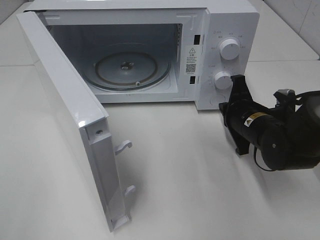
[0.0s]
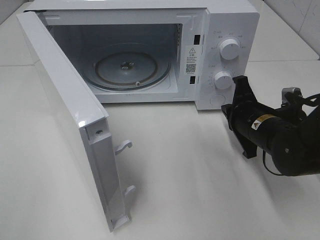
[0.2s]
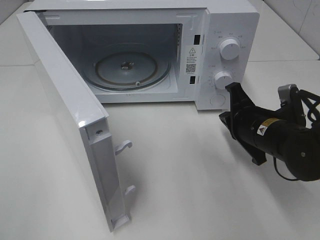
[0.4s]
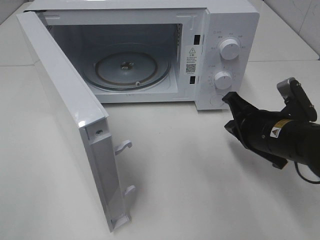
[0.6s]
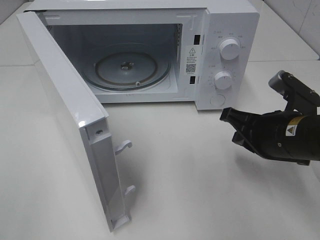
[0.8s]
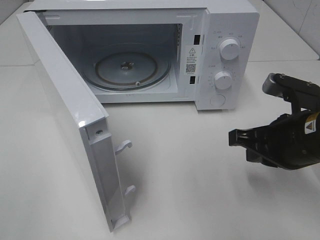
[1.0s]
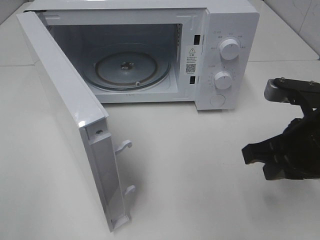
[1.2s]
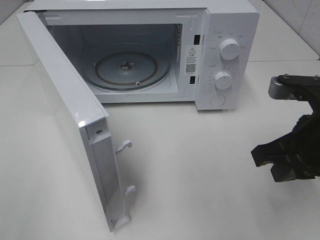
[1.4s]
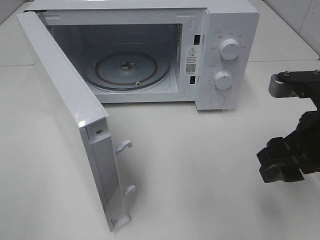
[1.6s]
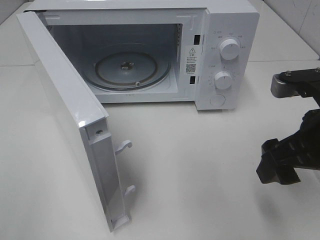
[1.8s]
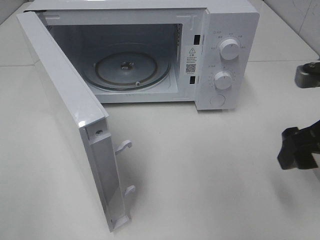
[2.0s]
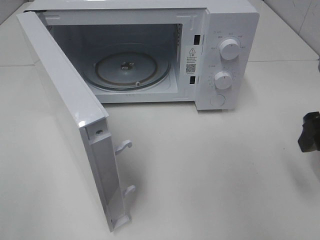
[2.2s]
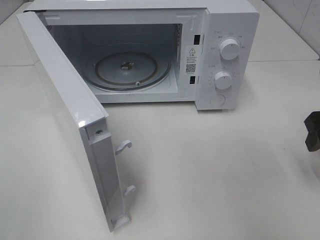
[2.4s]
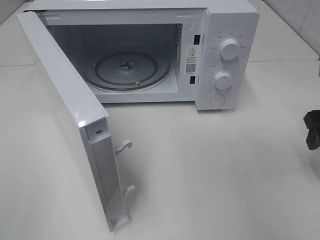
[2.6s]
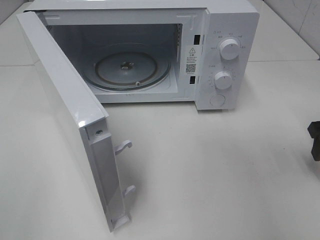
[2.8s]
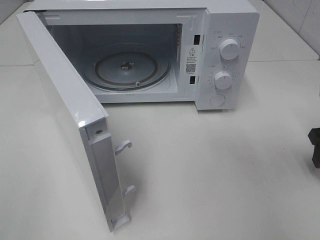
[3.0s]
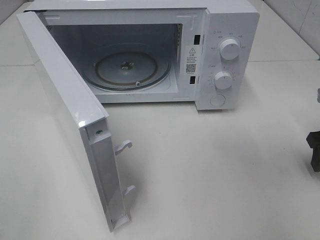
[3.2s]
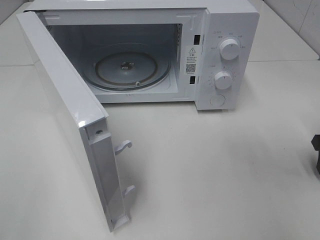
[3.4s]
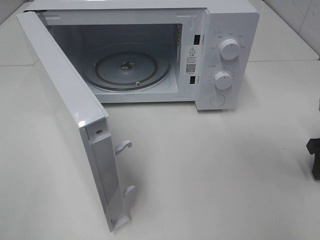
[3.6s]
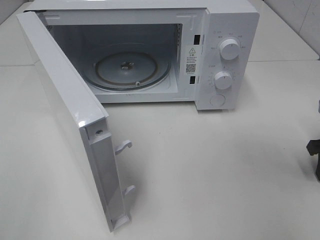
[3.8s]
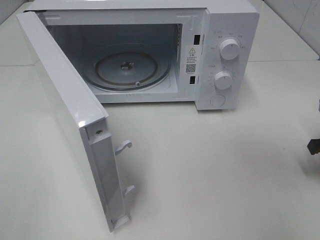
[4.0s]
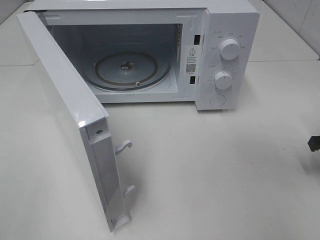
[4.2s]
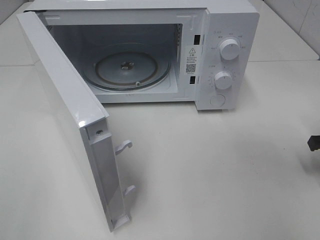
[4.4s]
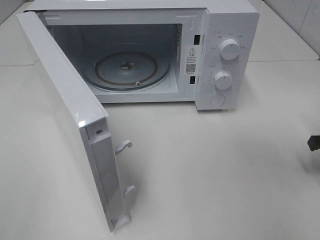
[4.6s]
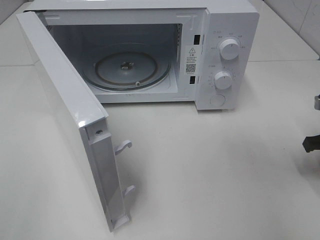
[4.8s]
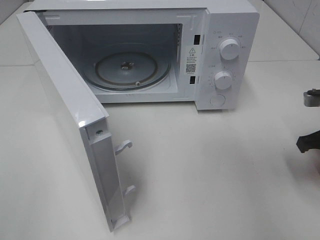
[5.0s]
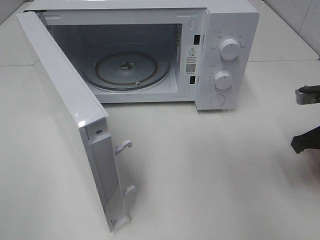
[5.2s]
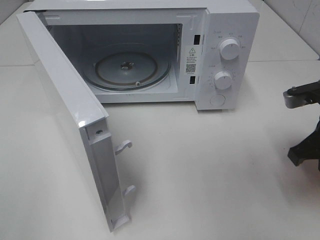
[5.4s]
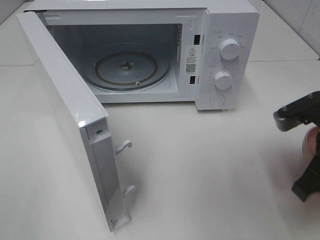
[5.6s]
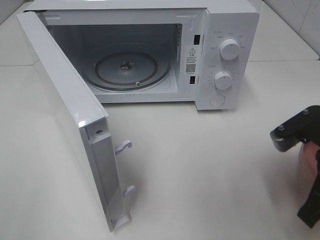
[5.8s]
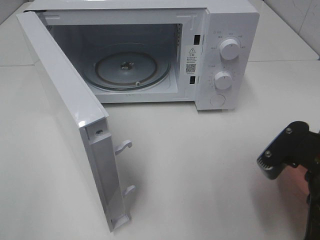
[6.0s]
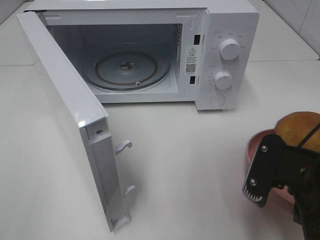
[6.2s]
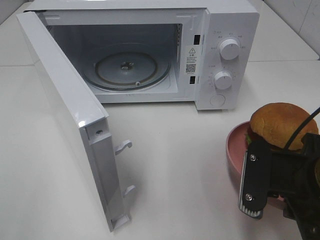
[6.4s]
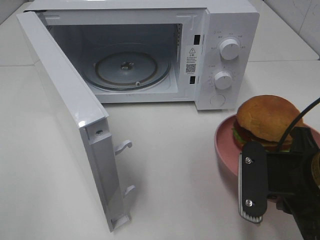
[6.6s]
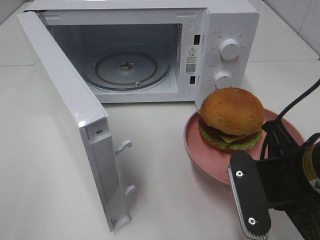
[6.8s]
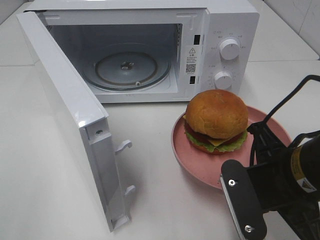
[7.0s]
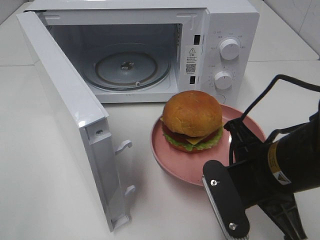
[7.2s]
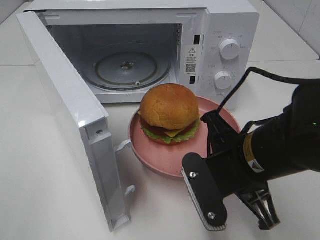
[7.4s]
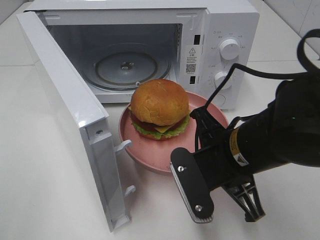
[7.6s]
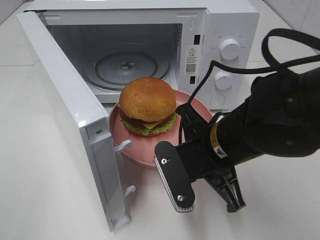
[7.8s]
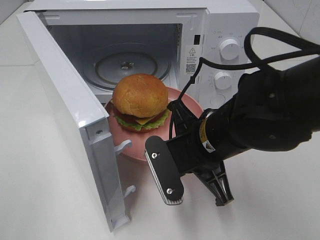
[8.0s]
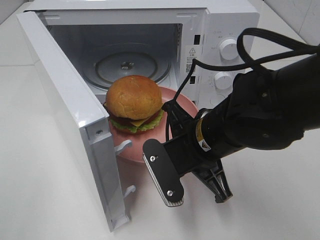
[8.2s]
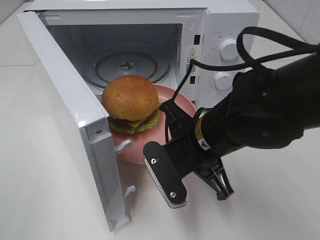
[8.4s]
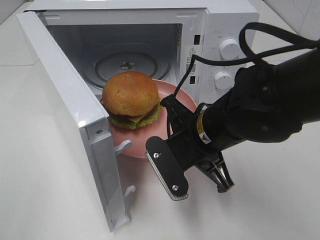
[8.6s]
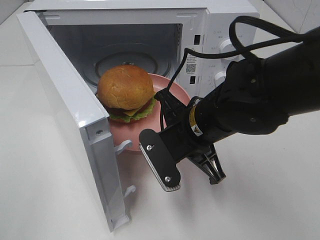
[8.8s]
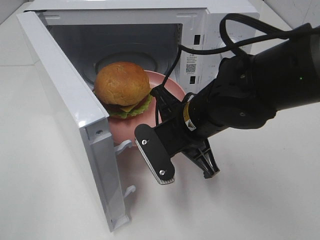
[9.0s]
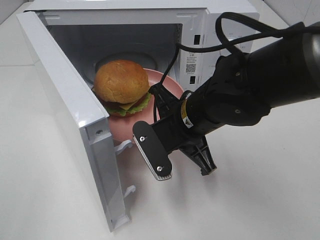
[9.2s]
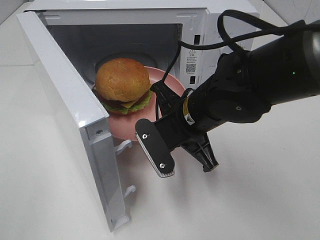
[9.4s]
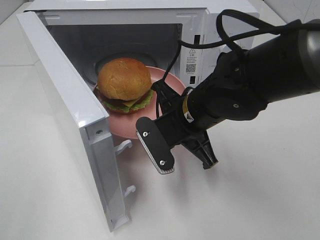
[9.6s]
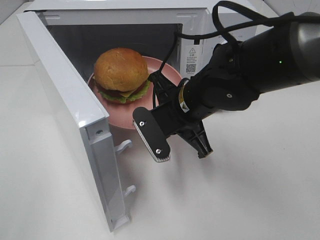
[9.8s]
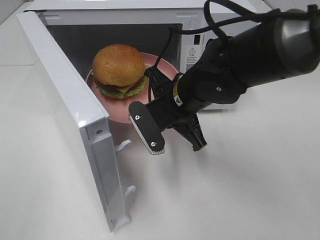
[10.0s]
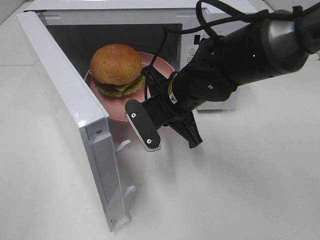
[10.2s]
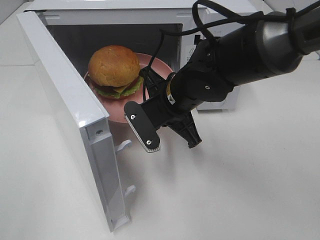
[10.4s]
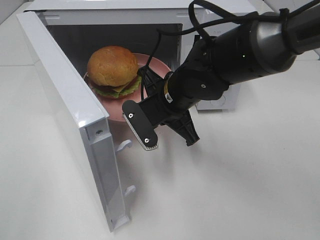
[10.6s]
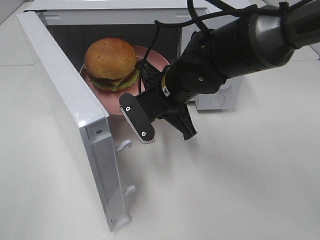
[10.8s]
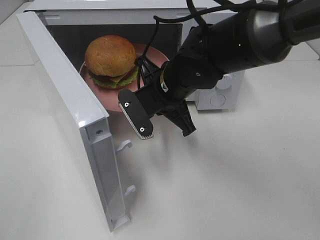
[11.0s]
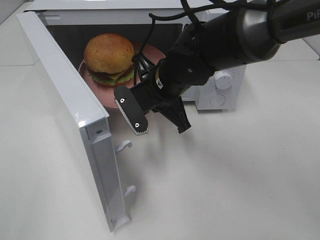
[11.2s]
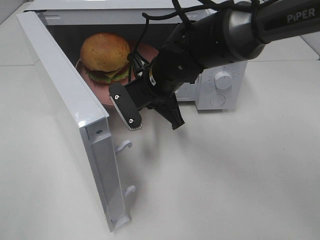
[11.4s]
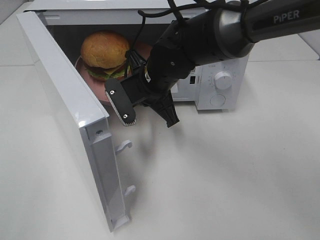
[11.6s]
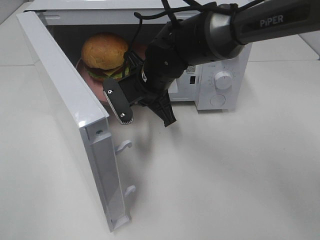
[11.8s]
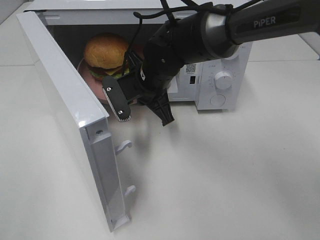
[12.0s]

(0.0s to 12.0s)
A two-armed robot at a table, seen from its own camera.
Task of the whole recording: Heat the burger.
Step, 0.4s - 4.6s: Right hand: grab the plate with the hamburger.
0.0s - 1.6s: The right gripper heads upward and backward, covering some 20 cm, and opens up.
1.6s - 3.0s: The right gripper goes approximately 20 cm to the right, forward and downward.
4.4s - 6.0s: The right gripper goes roughly 20 cm to the left, backward and upward.
6.0s - 7.6s: The right gripper is displaced to the left by some 10 cm.
7.6s - 9.0s: The right gripper moves forward, some 5 cm.
9.0s - 10.4s: The right gripper shifts approximately 5 cm forward.
10.4s - 12.0s: The right gripper travels forward by about 5 cm.

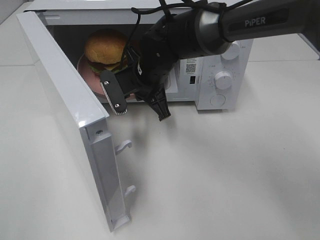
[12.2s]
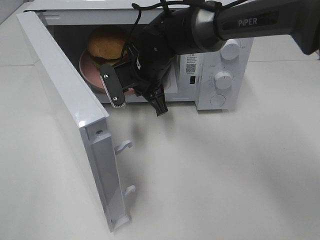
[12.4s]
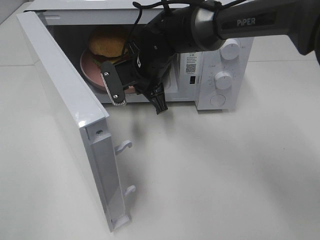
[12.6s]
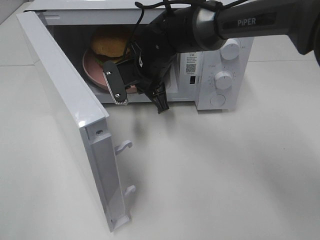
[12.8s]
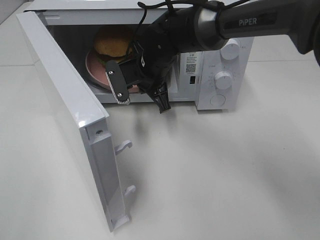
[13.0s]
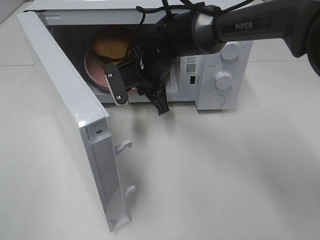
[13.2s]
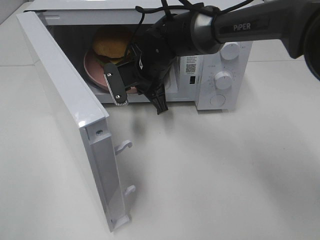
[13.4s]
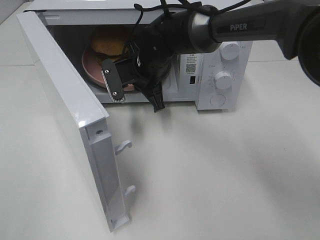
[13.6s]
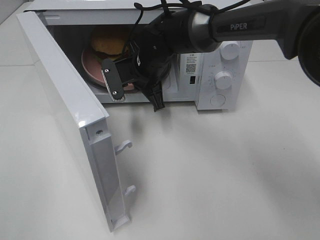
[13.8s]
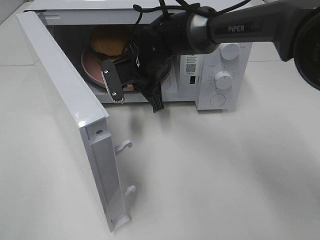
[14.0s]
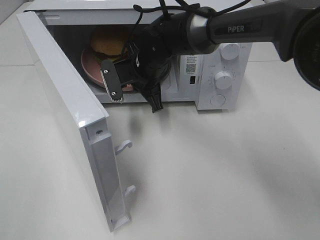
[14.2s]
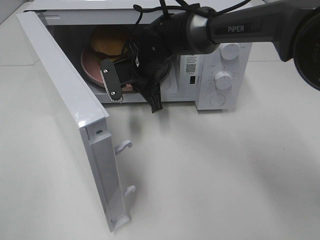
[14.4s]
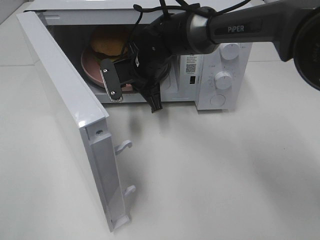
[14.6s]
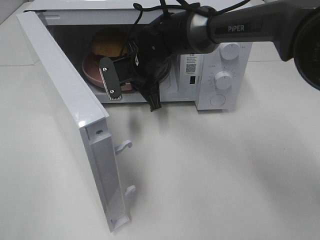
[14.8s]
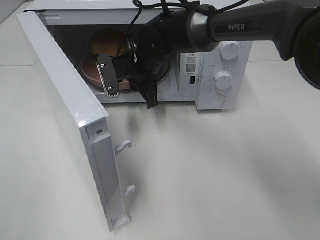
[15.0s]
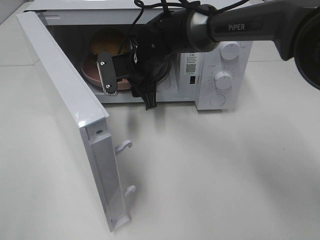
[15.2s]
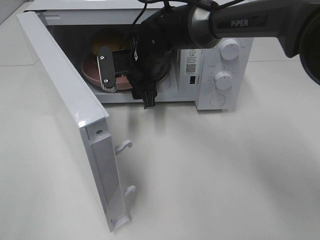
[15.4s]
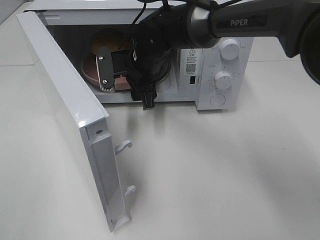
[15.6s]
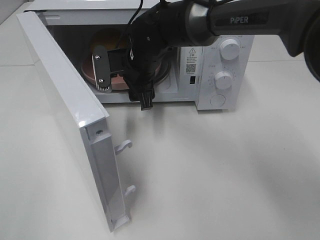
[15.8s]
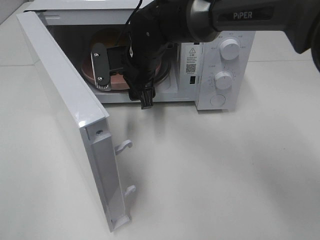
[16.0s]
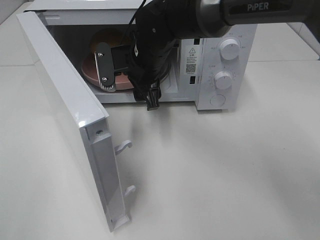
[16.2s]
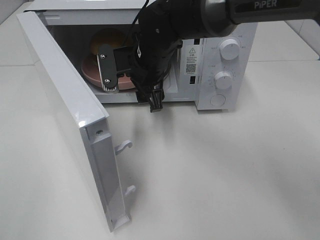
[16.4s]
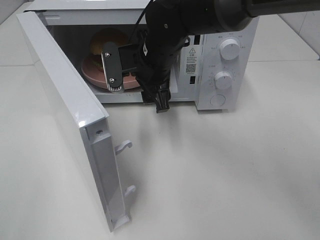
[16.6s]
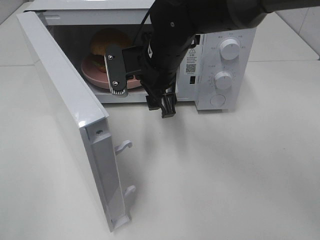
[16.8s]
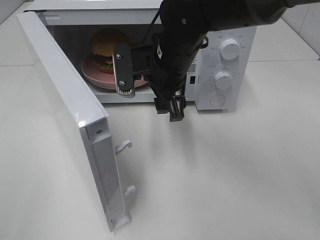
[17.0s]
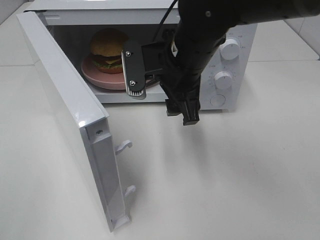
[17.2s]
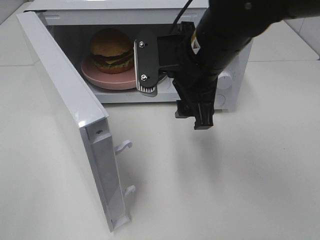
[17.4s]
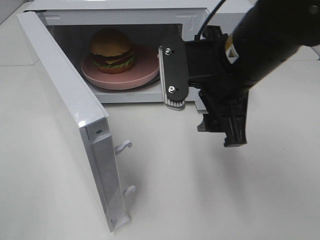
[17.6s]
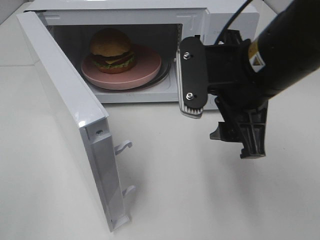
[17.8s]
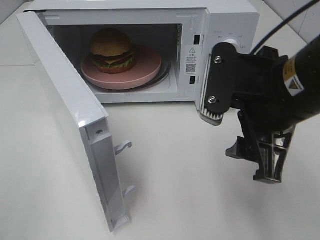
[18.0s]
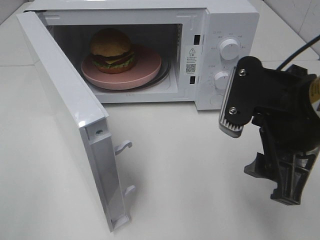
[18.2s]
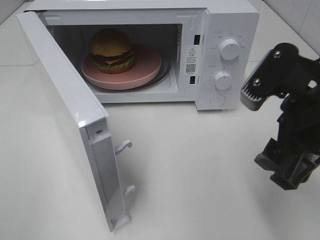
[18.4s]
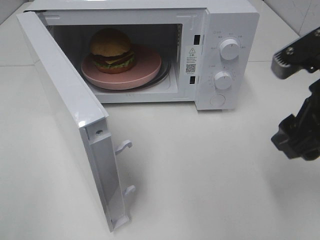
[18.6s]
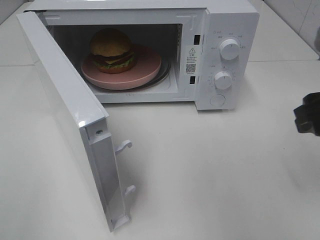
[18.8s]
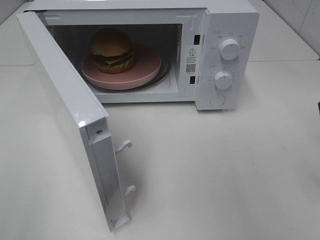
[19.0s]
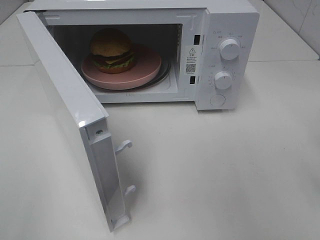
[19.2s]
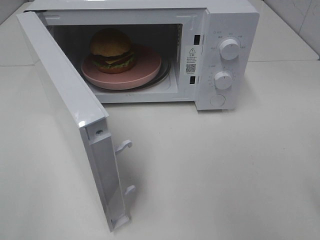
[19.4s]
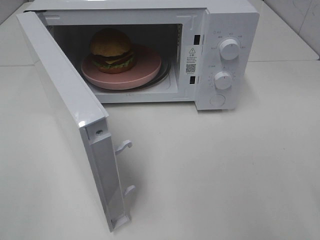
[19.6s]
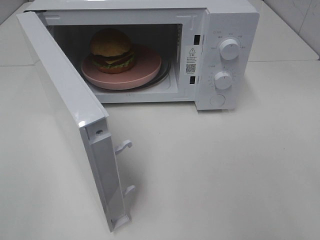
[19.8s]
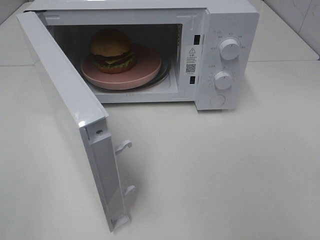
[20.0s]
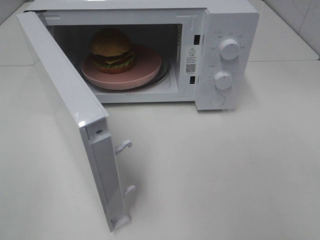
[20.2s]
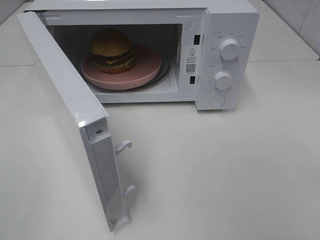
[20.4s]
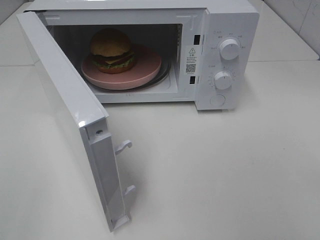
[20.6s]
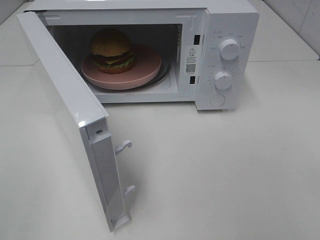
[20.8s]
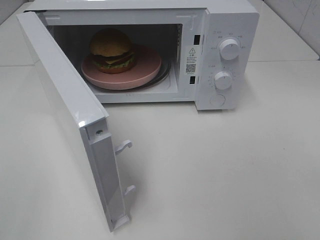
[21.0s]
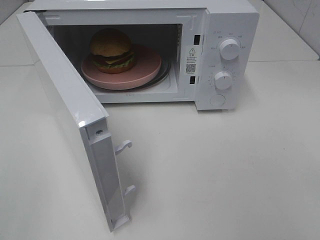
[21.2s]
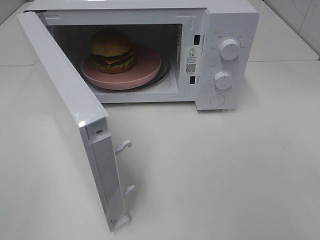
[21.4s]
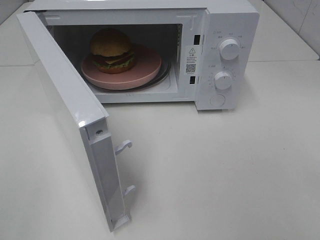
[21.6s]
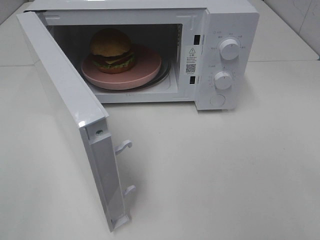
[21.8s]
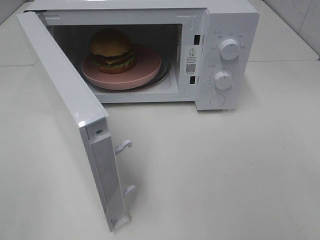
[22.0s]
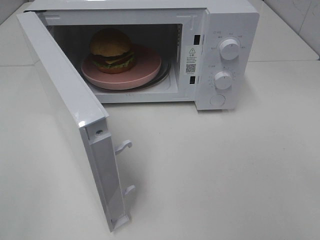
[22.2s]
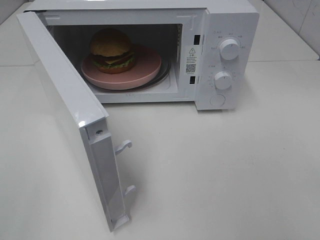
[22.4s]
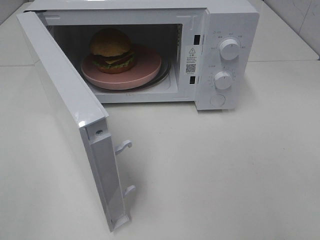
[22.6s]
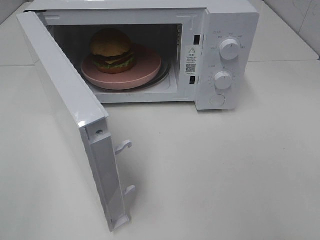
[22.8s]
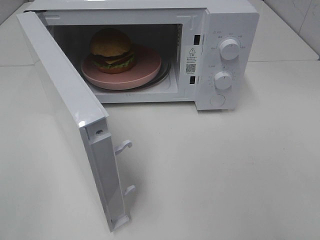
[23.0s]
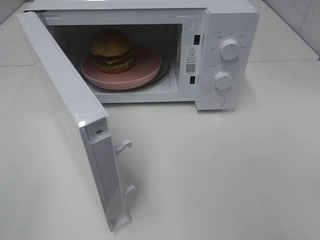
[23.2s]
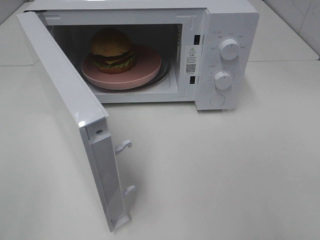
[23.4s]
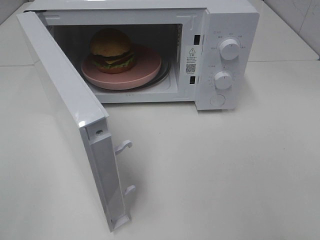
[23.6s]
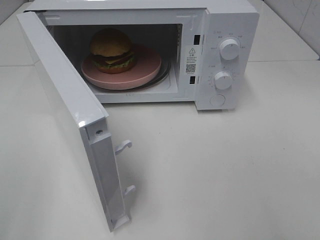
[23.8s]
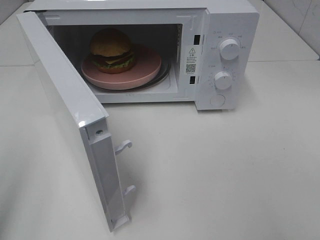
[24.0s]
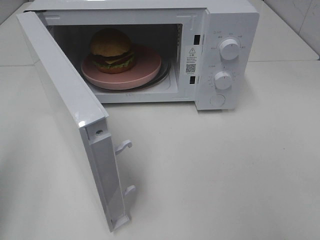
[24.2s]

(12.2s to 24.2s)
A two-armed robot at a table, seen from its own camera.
Task of the whole recording: Heat the burger.
Step, 12.2s - 15.4s: Right hand: place the plate in the microwave.
12.2s - 13.8s: The grippers make only small movements.
13.8s - 15.2s: The right gripper opens.
15.2s - 16.6s: The right gripper changes place by approximately 5 cm.
16.6s - 18.2s: The right gripper goes about 25 cm backward and to the right.
18.2s - 19.8s: The right gripper shifts roughly 15 cm to the right and backward.
21.2s - 22.6s: Both grippers stay about where they are.
22.6s - 24.2s: The left gripper travels forward by approximately 10 cm, and closes its fingers.
